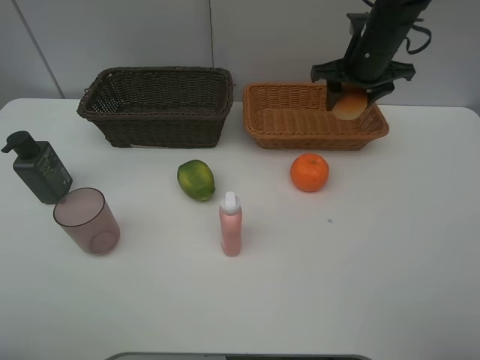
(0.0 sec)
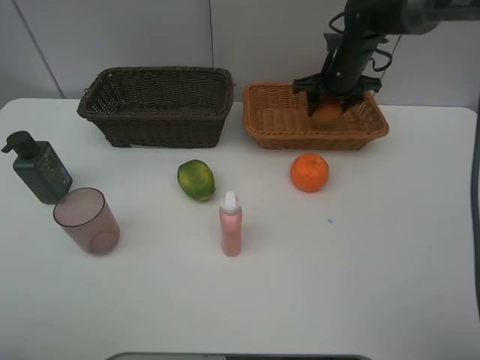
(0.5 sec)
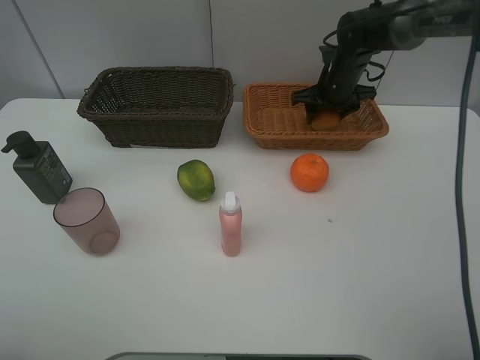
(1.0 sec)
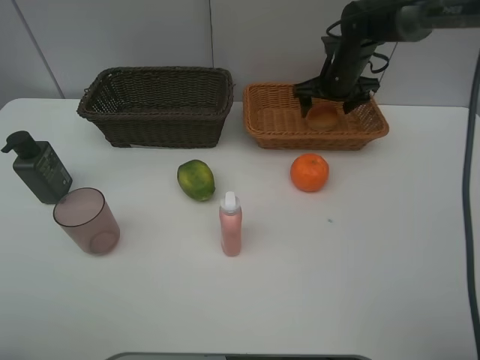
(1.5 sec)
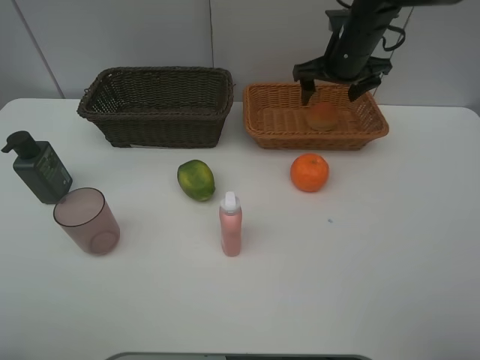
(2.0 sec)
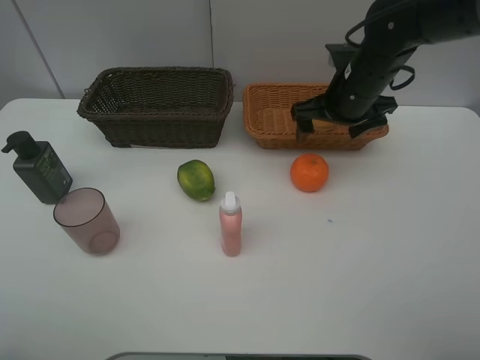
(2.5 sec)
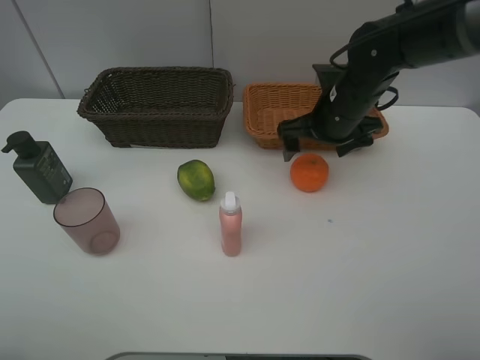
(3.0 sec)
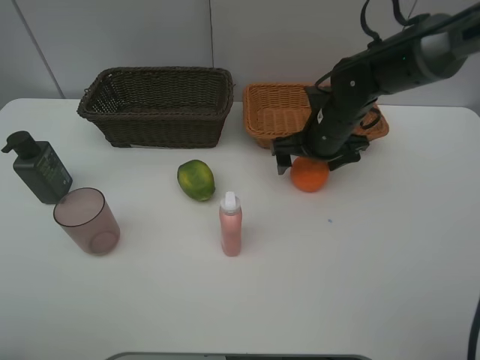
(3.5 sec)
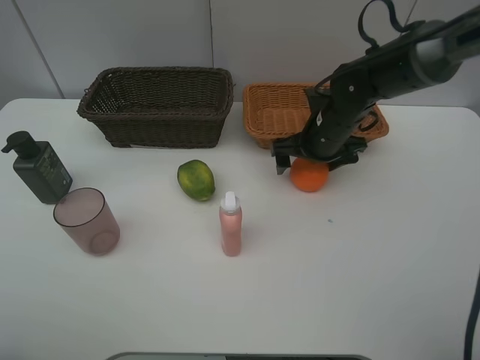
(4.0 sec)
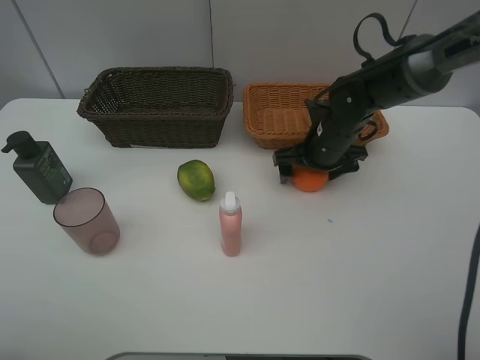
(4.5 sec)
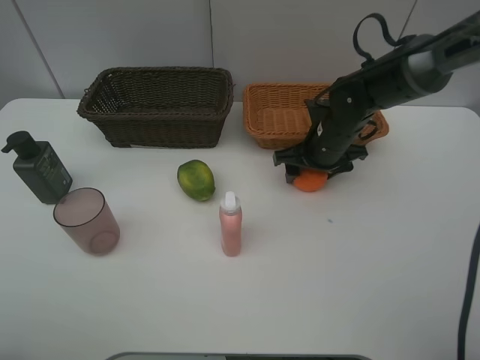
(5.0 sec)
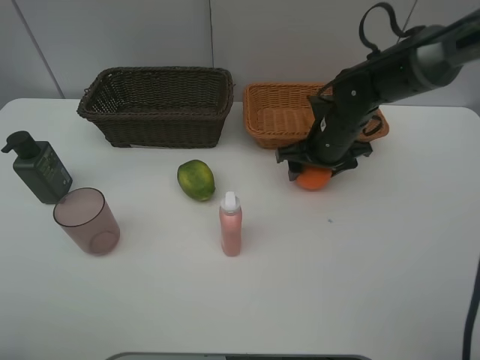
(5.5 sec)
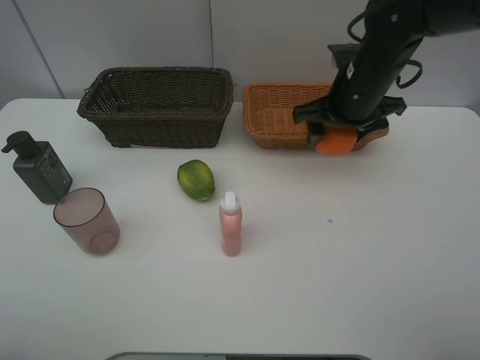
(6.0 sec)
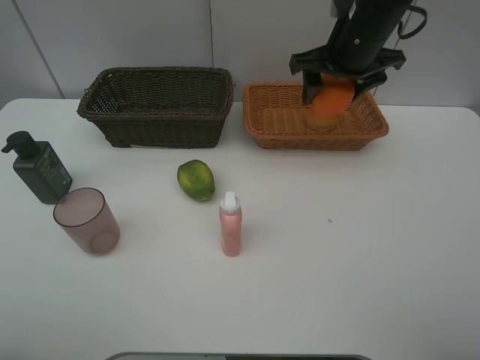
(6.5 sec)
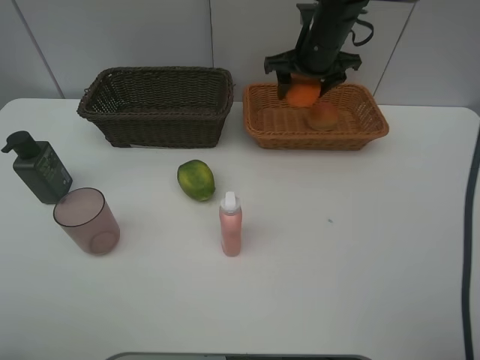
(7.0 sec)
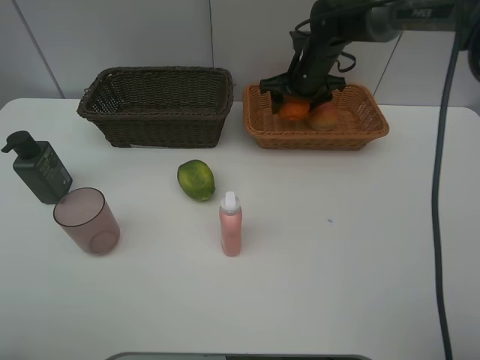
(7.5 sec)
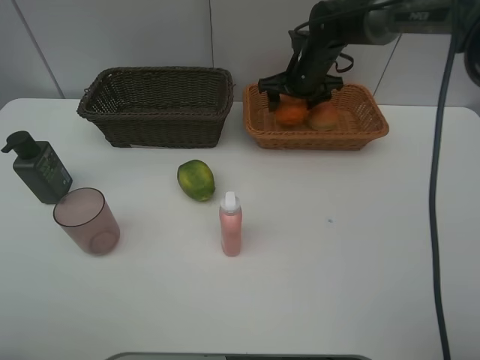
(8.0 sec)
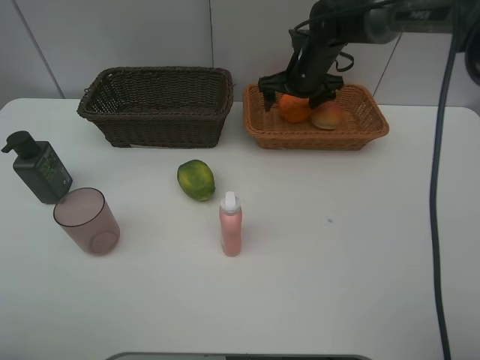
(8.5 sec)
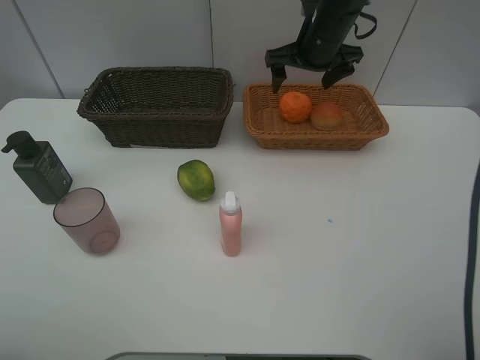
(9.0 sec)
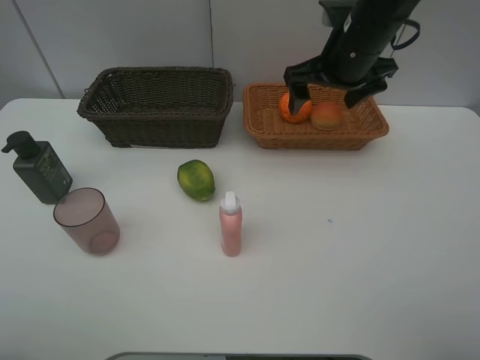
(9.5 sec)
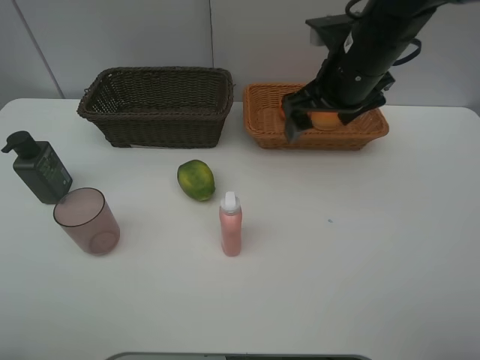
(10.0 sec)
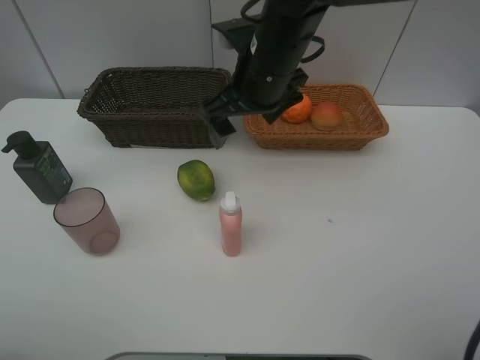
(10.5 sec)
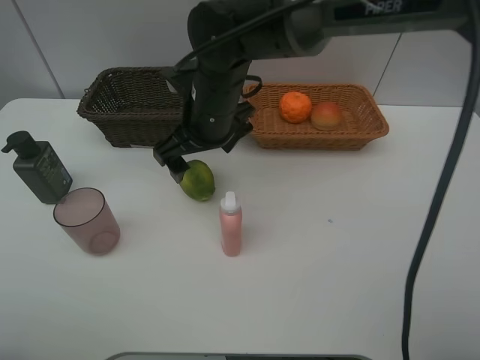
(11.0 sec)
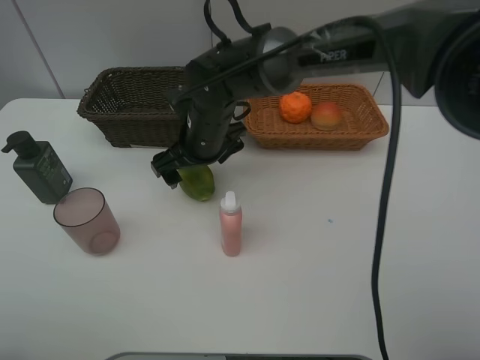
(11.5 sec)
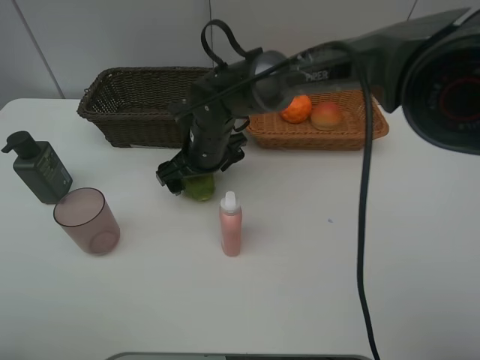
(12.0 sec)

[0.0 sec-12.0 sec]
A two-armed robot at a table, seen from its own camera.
Task of the whole recording: place multiple objects separately in different baskets.
0.0 sec to 2.0 sec: The right gripper opens.
2.0 sec to 4.0 sec: The right gripper travels downward and backward by about 10 cm.
4.0 sec to 6.0 sec: The right gripper travels upward by some 10 cm, and closes.
6.0 sec to 8.0 sec: The right gripper heads forward, covering approximately 15 cm.
8.0 sec to 10.0 sec: The right gripper heads backward and upward, covering some 20 cm.
10.0 sec to 12.0 sec: The right gripper travels to the left and downward by some 20 cm.

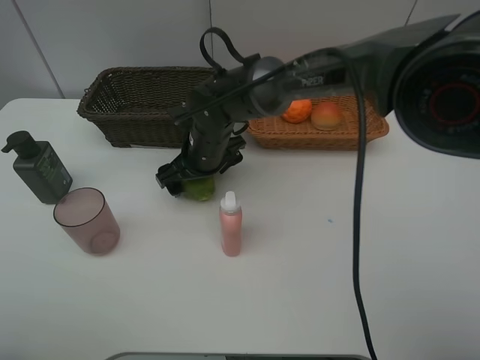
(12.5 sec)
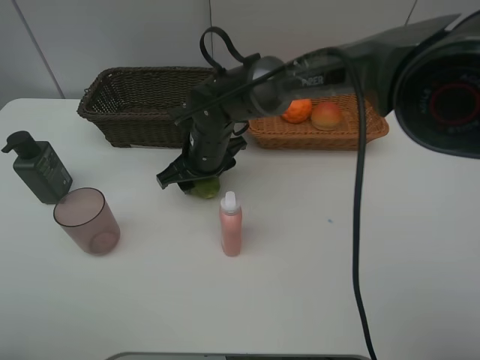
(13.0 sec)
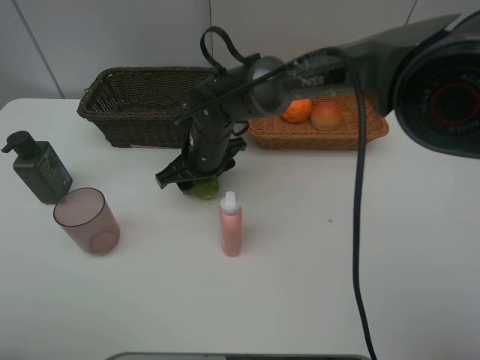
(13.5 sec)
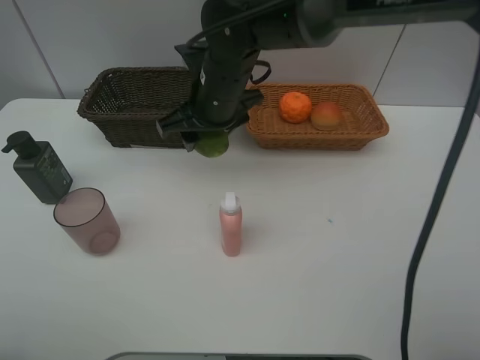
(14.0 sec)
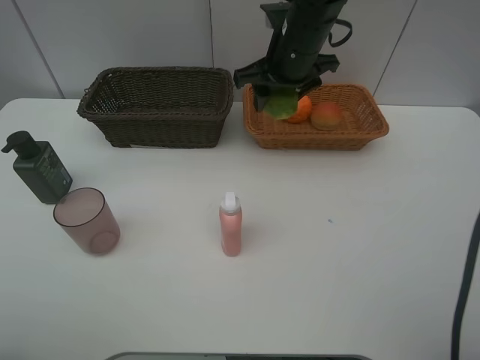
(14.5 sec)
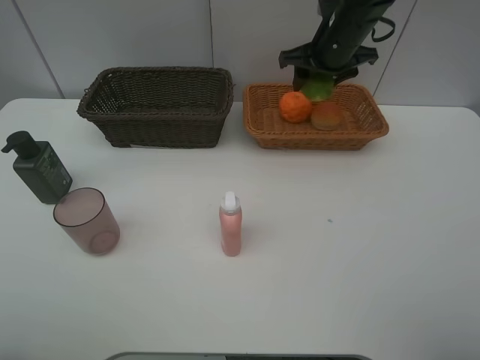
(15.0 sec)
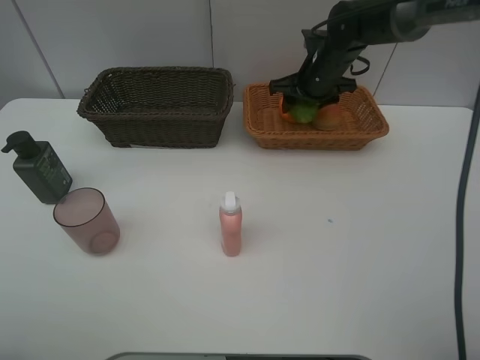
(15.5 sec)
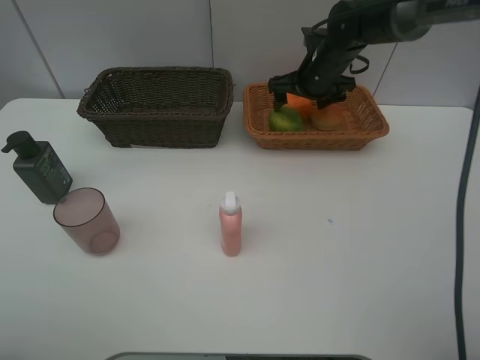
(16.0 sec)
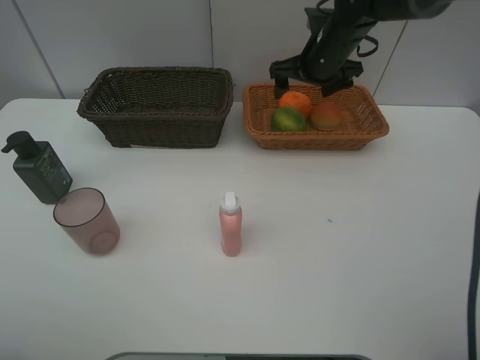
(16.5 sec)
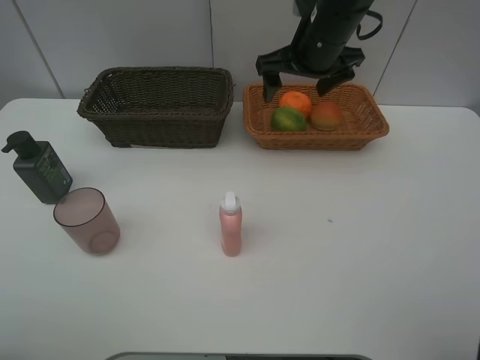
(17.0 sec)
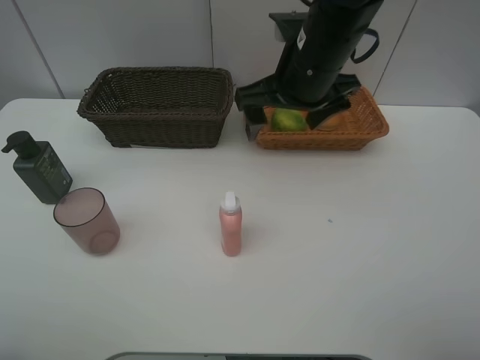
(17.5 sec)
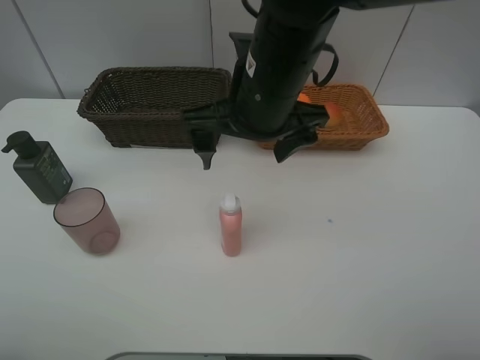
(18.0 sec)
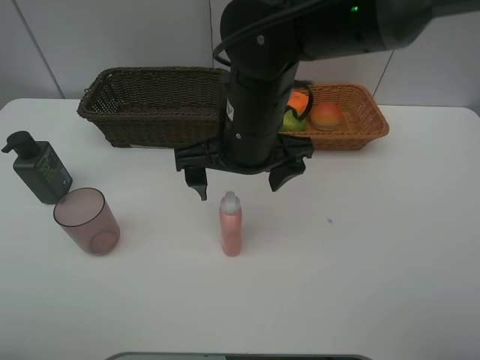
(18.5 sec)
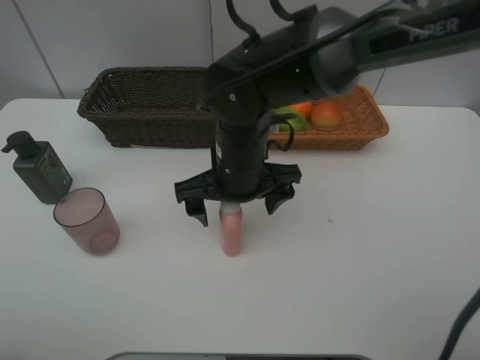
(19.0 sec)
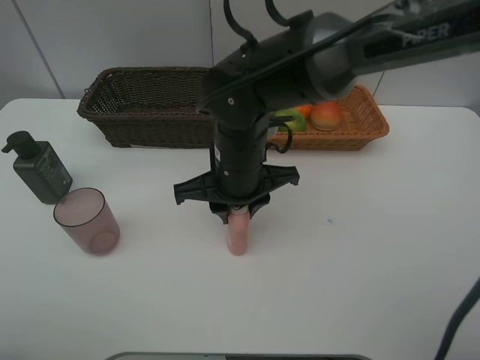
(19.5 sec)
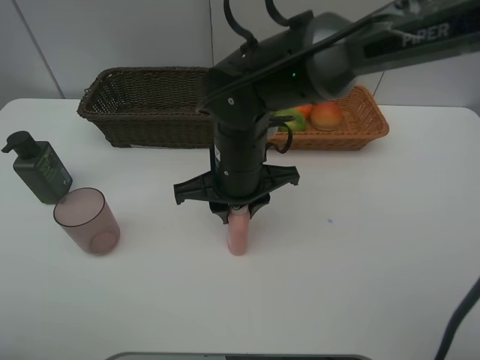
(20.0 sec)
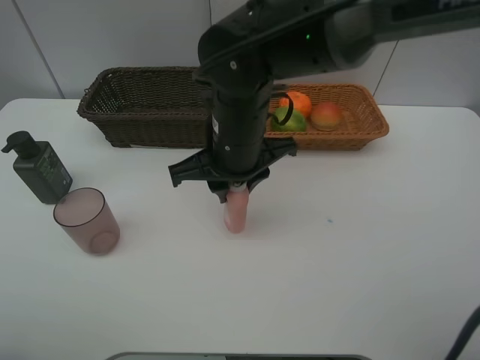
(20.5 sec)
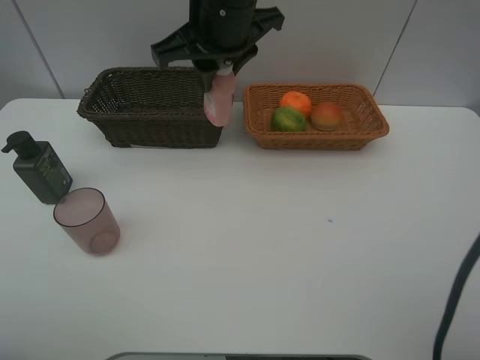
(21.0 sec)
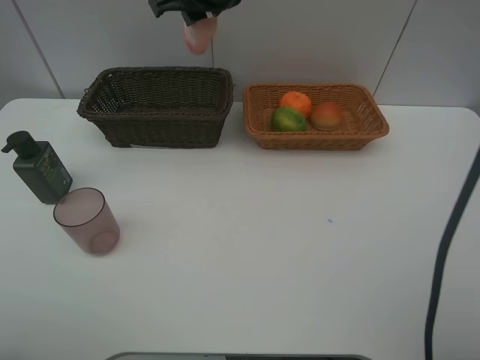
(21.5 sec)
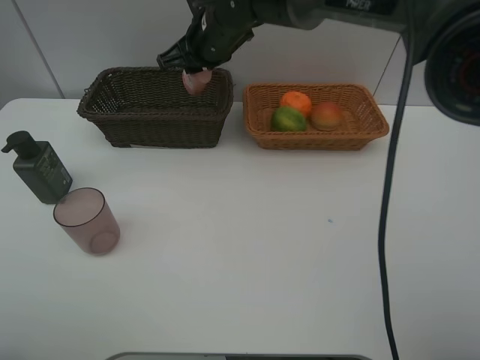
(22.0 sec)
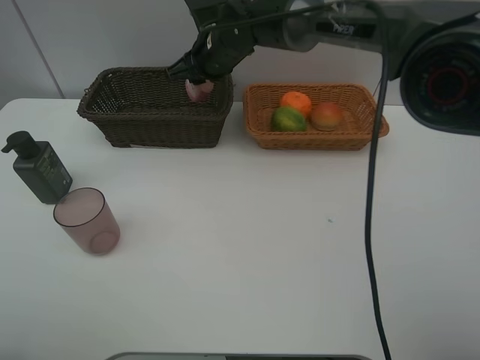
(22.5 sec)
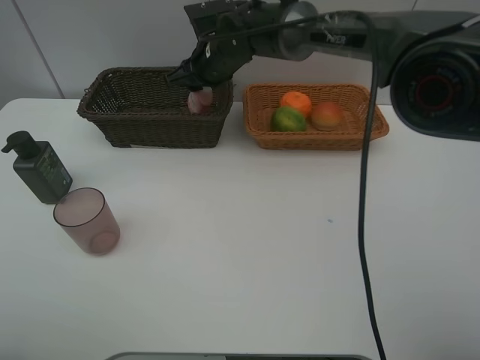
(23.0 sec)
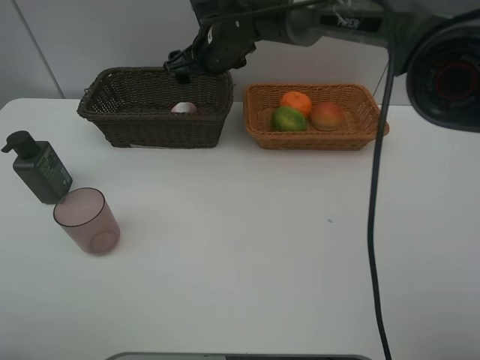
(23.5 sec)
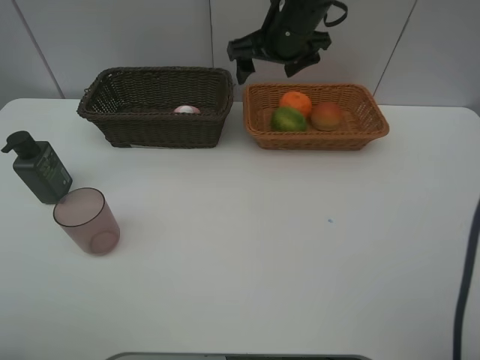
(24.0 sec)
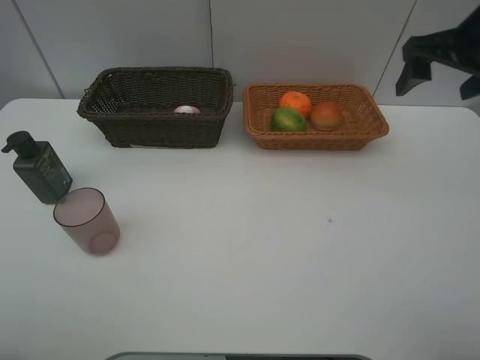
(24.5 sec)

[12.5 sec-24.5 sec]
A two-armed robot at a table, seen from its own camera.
Task of the whole recording: place multiple objects separately in different baskets.
12.5 sec to 14.5 sec: The right gripper goes approximately 20 cm to the right and upward, and closes its fingers.
14.5 sec to 16.5 sec: The right gripper is displaced to the right by approximately 5 cm, and opens.
16.5 sec to 18.5 sec: The right gripper heads backward and to the left, covering approximately 25 cm.
18.5 sec to 20.5 sec: The right gripper closes.
20.5 sec to 22.5 sec: The right gripper goes some 20 cm forward.
22.5 sec to 24.5 sec: The right gripper heads to the right and backward, covering about 35 cm, and opens its fingers.

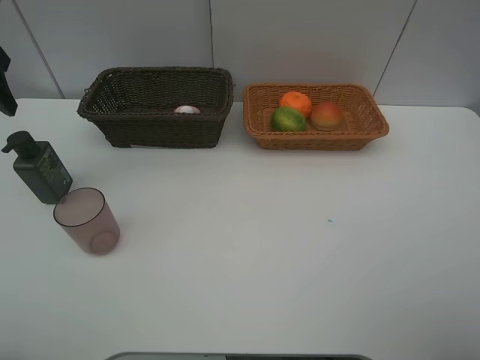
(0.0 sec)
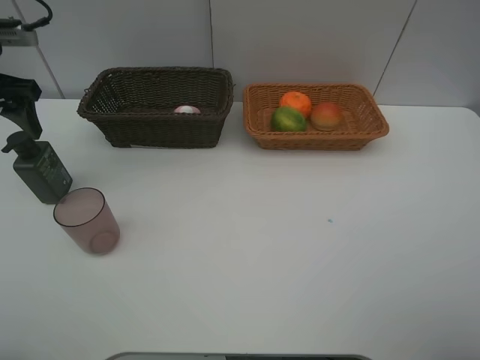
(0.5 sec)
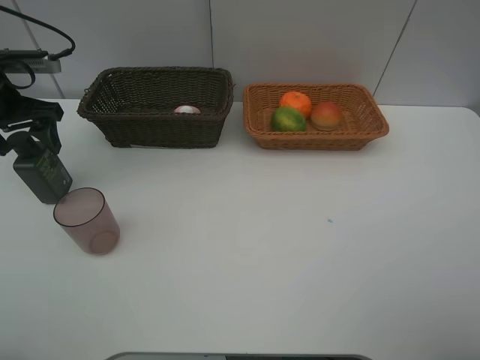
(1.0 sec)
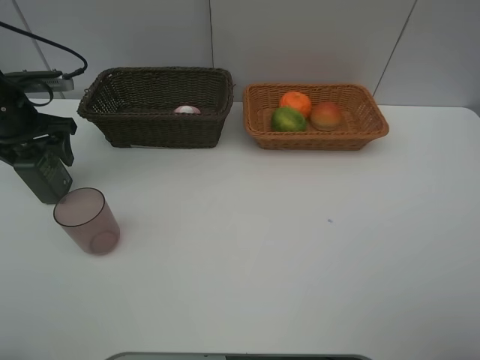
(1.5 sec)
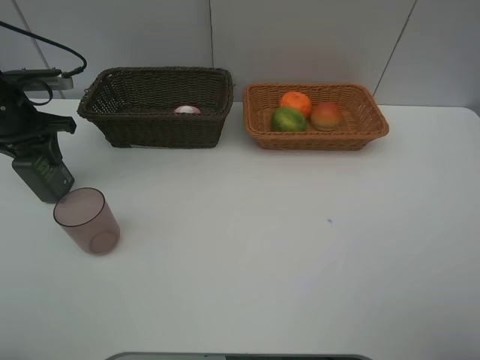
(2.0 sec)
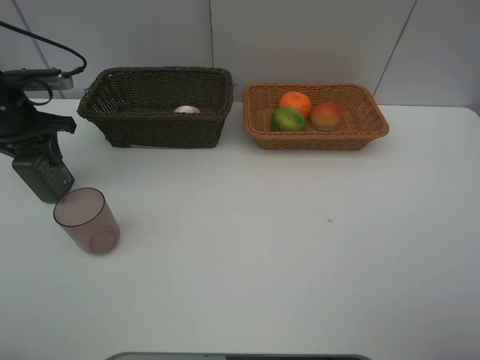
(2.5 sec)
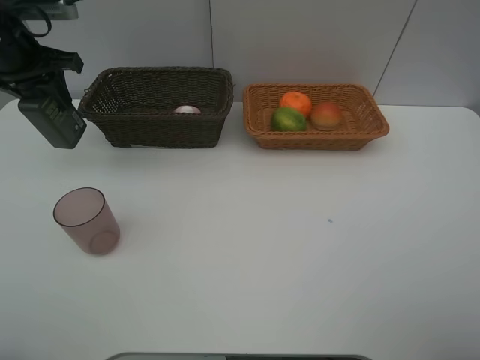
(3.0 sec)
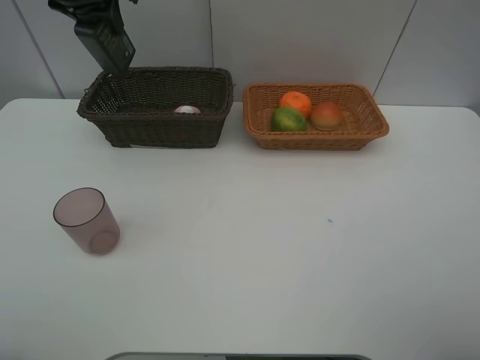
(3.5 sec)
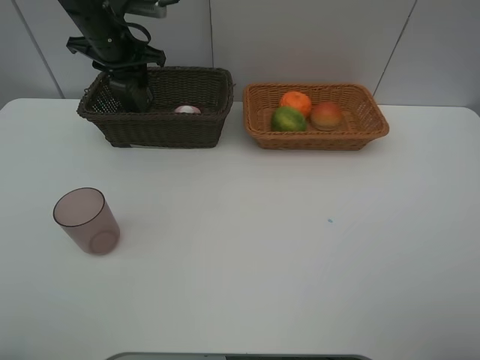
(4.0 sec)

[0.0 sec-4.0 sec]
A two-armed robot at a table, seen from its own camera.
Task of the whole recording: place multiple objects separately in different baskets.
0.0 sec to 2.0 sec: The left gripper shifts approximately 15 cm downward and forward, and closes its fingers.
2.0 sec to 4.0 sec: The left gripper shifts roughly 15 cm to the right and forward, and moves some 15 cm upward and comes back.
